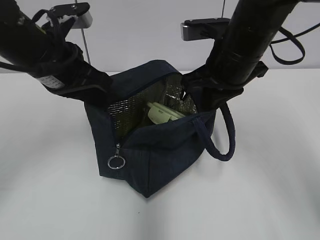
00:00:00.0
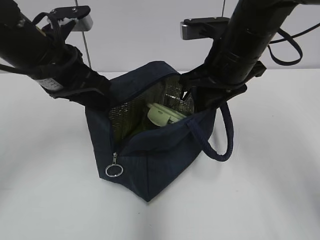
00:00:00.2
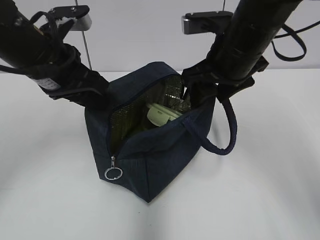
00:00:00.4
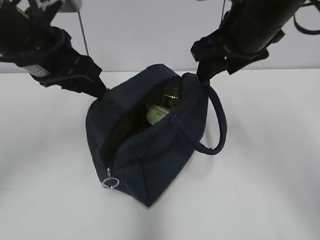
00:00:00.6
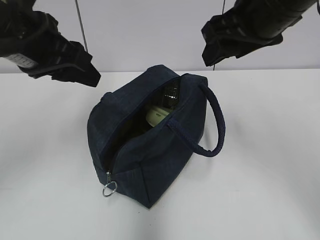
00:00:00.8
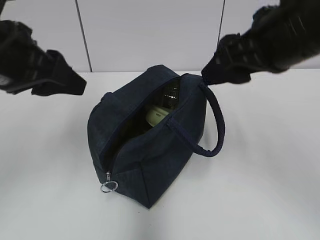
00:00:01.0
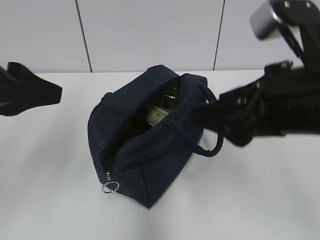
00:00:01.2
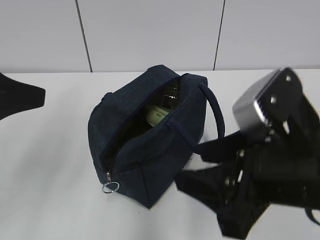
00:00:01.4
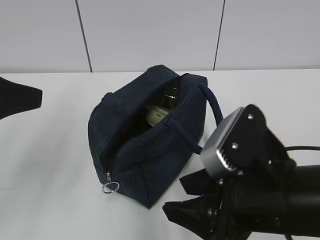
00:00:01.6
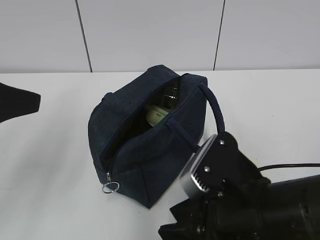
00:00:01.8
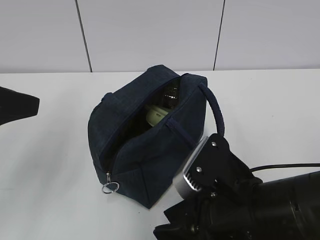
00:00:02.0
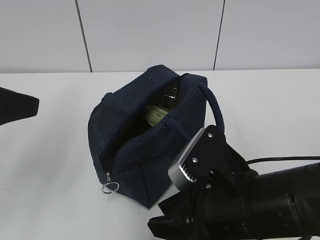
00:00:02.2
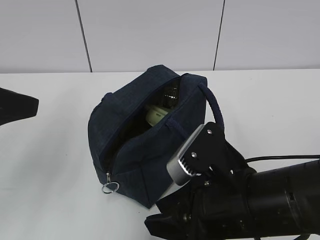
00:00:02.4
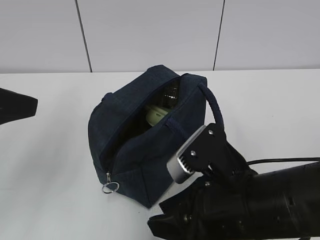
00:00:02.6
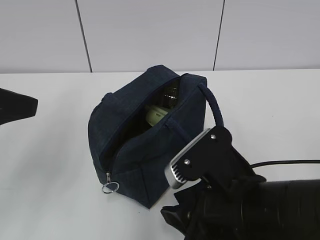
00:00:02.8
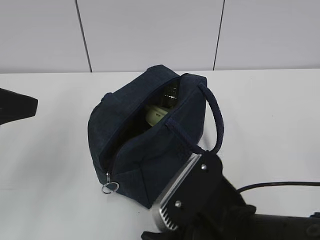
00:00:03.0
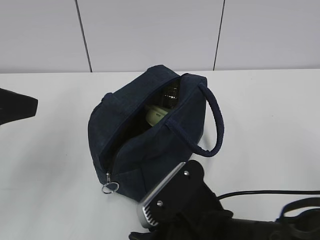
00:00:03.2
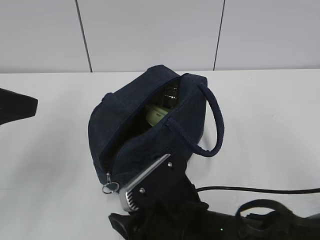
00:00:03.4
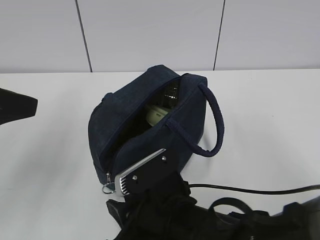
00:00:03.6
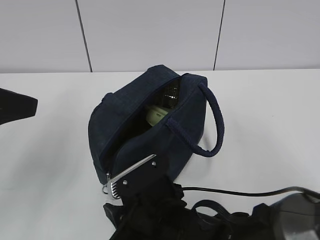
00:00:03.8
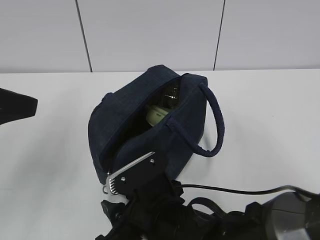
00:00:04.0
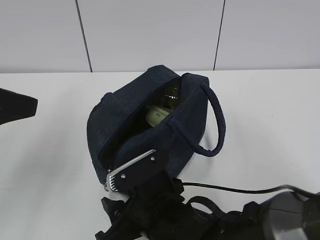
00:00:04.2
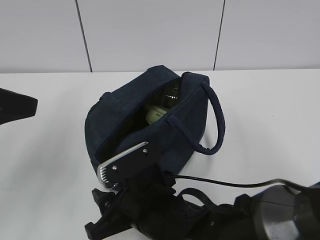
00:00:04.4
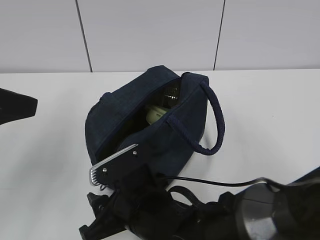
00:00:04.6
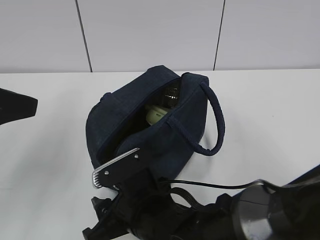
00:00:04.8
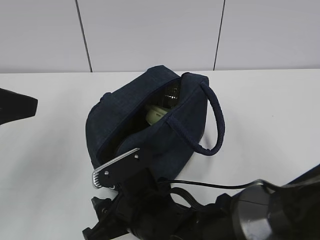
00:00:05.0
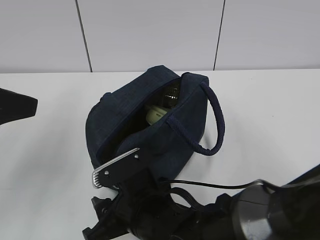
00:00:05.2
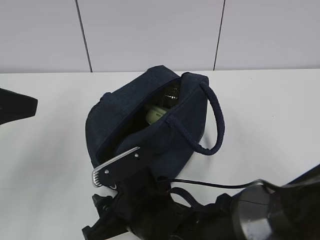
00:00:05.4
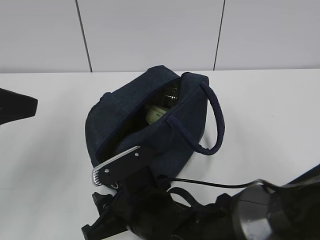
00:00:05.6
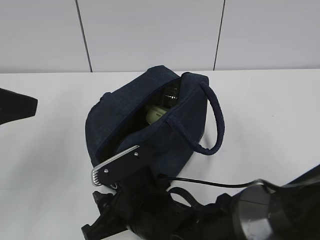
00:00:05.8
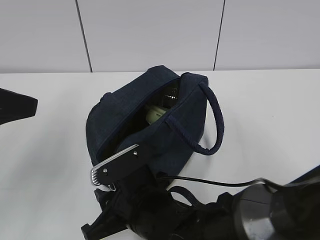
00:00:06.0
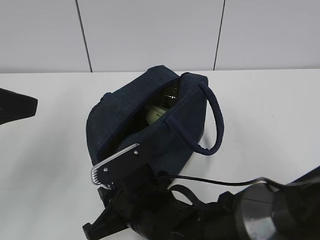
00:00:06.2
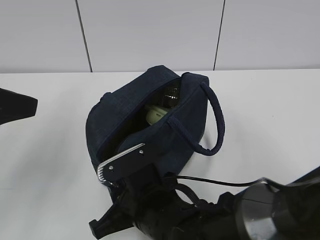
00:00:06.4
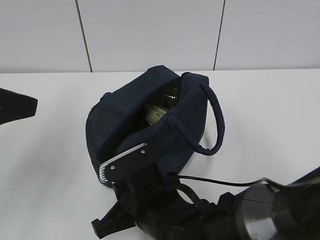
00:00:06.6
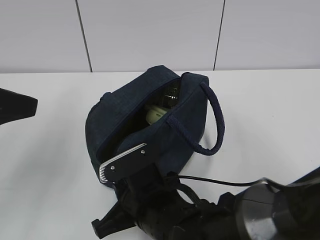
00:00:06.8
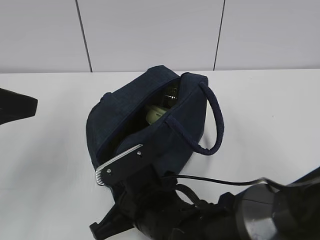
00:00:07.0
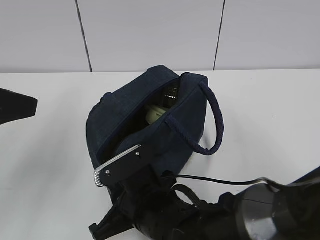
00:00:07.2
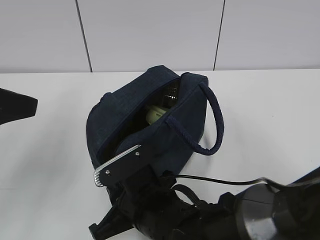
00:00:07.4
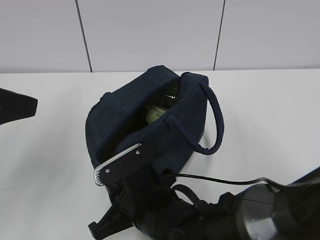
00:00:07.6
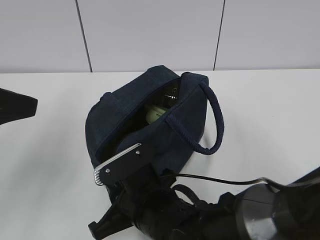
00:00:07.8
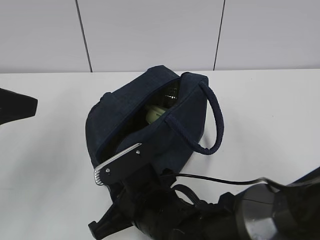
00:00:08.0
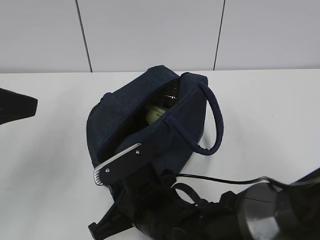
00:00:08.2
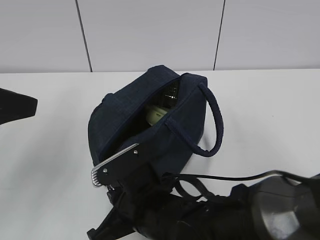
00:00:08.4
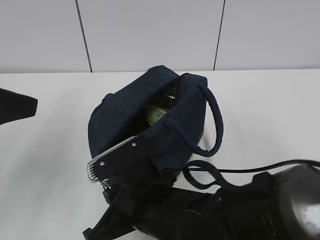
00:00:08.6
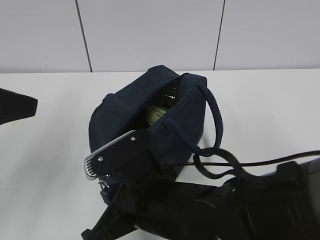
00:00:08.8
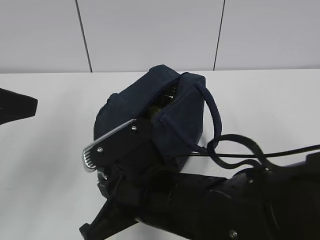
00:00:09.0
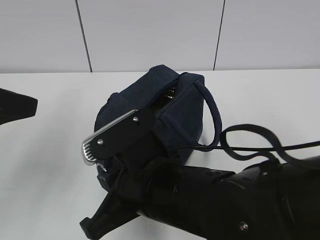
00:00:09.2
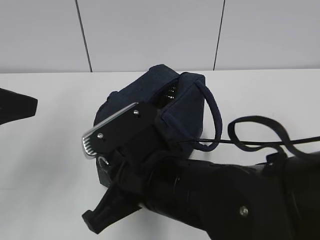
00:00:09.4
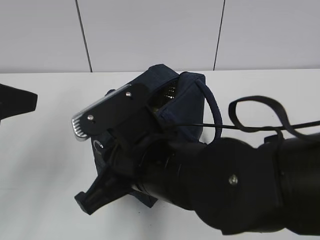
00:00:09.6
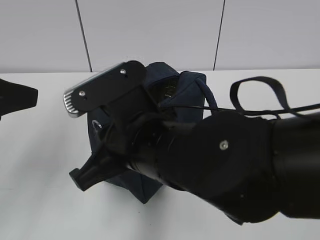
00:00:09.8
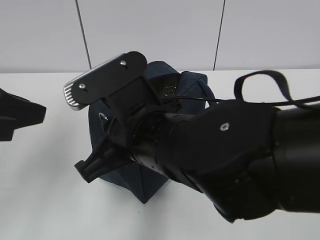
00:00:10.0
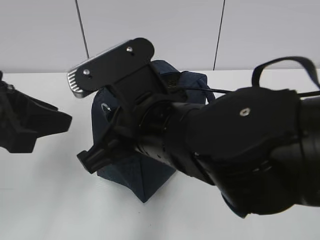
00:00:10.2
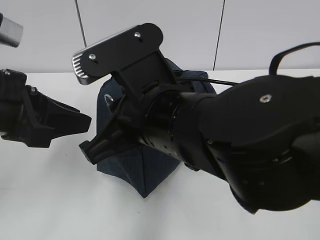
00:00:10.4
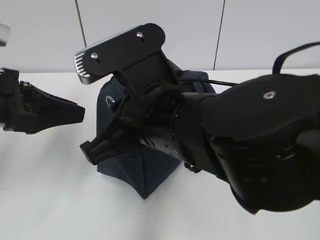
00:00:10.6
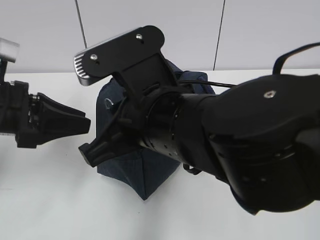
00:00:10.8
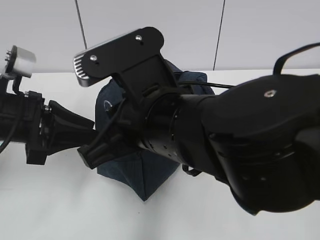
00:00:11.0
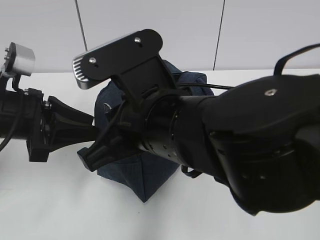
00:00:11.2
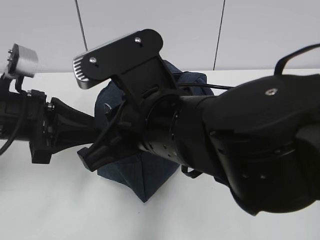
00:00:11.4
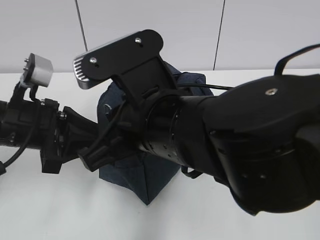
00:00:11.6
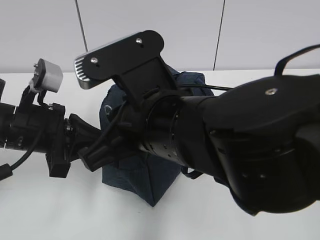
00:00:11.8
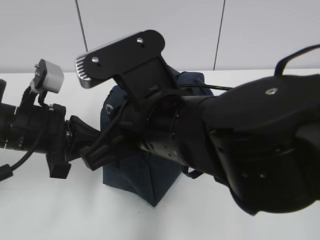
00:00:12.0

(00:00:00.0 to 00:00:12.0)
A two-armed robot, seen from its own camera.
00:00:00.0 - 00:00:01.6: The left gripper heads backward and to the left, covering some 15 cm, and opens up. The right gripper shifts approximately 20 cm backward, and opens its fingers.
00:00:01.6 - 00:00:03.0: The right gripper shifts by approximately 5 cm.
00:00:03.0 - 00:00:04.4: The right gripper goes approximately 10 cm to the left, forward and downward.
00:00:04.4 - 00:00:07.6: The grippers make only small movements.
00:00:07.6 - 00:00:09.0: The right gripper travels upward by roughly 10 cm.
00:00:09.0 - 00:00:10.4: The left gripper moves forward, some 5 cm. The right gripper goes about 10 cm upward.
00:00:10.4 - 00:00:12.0: The left gripper heads downward, covering some 5 cm, and closes its fingers.

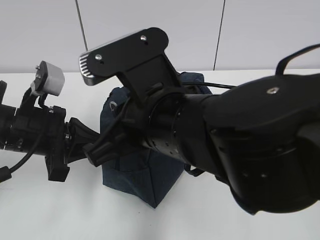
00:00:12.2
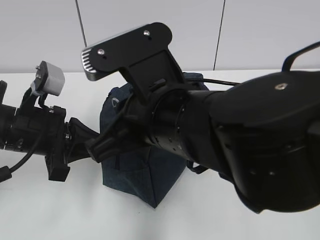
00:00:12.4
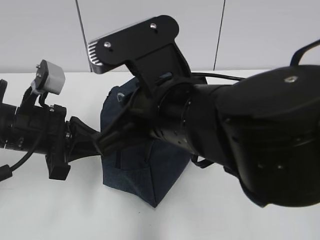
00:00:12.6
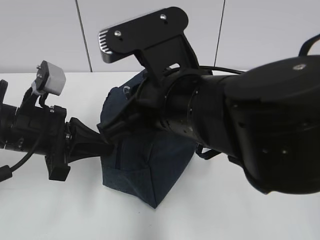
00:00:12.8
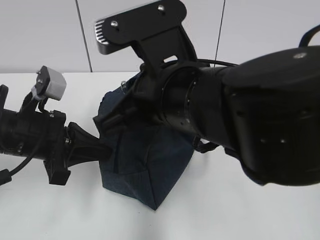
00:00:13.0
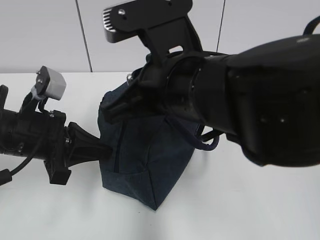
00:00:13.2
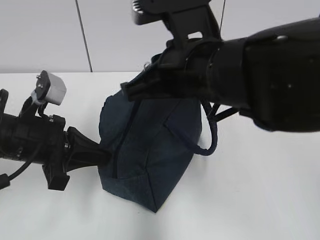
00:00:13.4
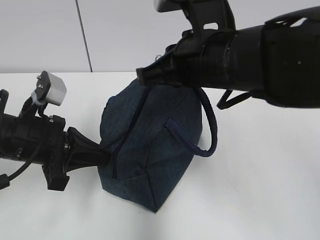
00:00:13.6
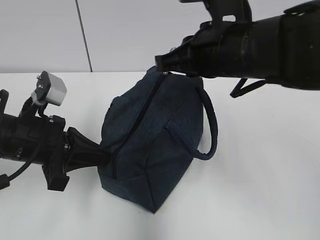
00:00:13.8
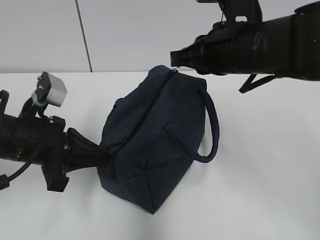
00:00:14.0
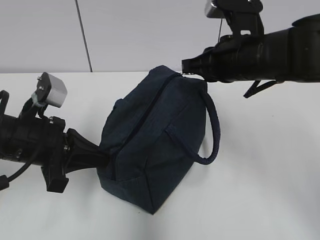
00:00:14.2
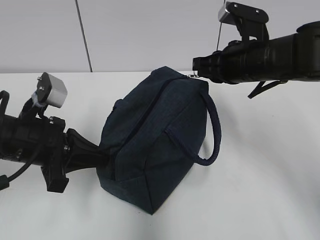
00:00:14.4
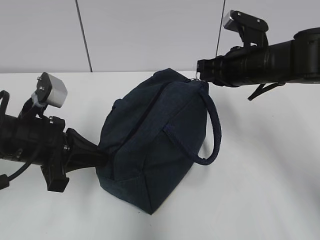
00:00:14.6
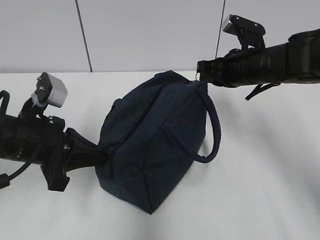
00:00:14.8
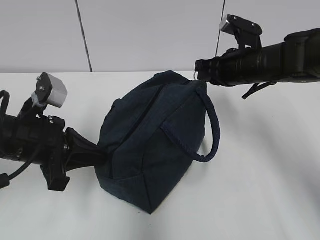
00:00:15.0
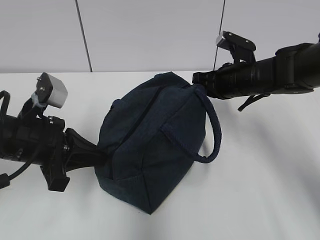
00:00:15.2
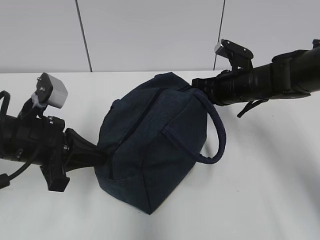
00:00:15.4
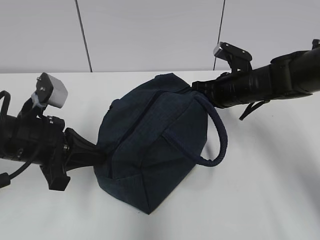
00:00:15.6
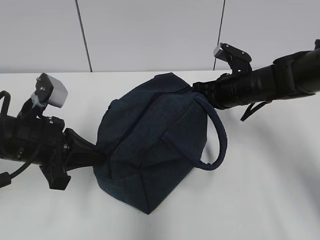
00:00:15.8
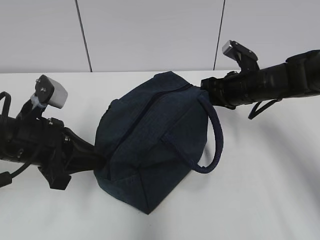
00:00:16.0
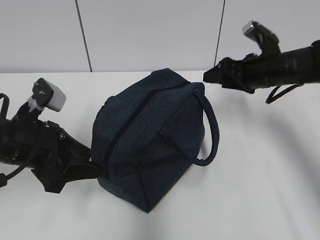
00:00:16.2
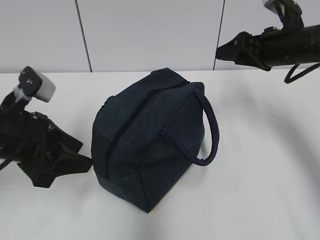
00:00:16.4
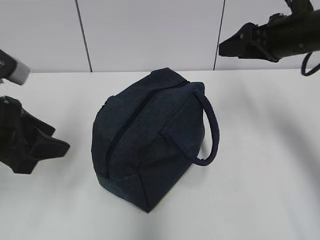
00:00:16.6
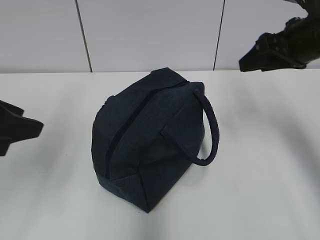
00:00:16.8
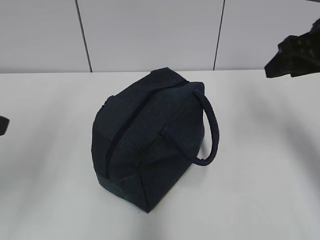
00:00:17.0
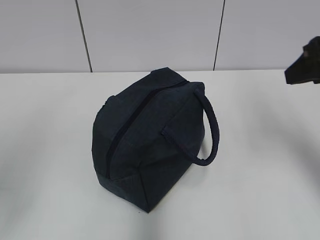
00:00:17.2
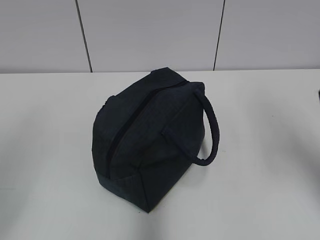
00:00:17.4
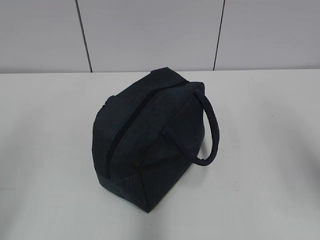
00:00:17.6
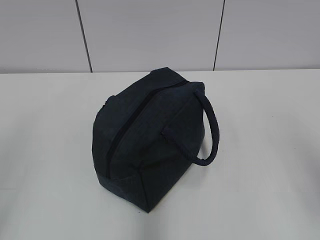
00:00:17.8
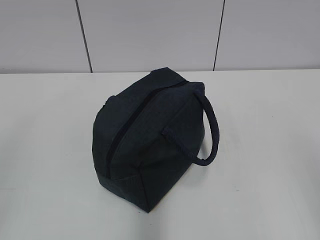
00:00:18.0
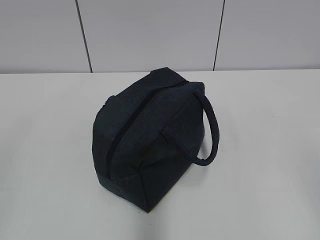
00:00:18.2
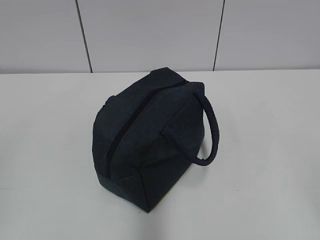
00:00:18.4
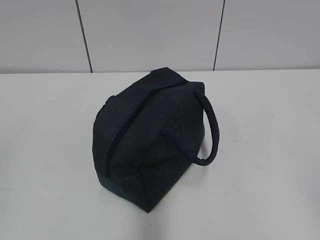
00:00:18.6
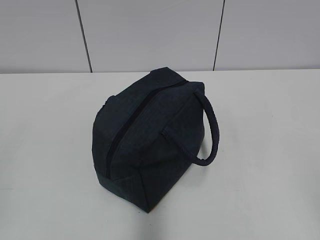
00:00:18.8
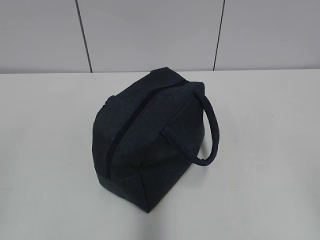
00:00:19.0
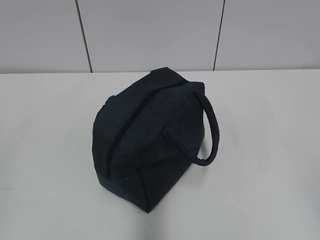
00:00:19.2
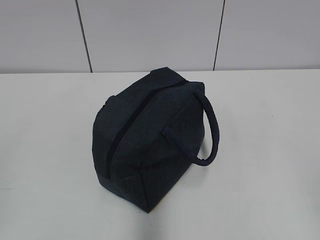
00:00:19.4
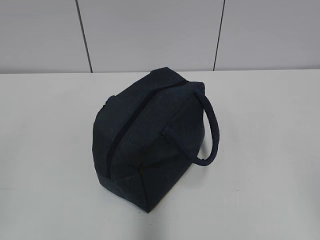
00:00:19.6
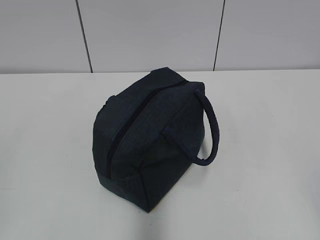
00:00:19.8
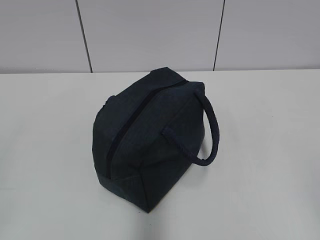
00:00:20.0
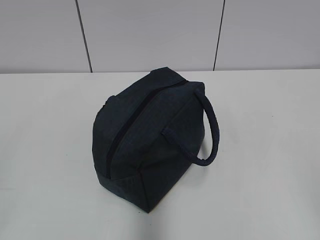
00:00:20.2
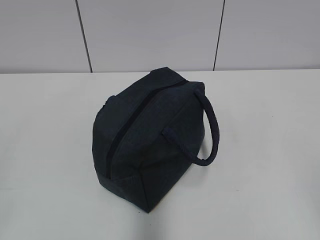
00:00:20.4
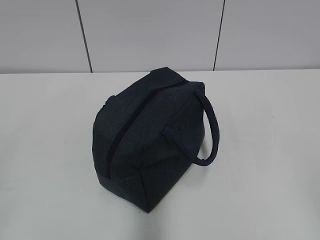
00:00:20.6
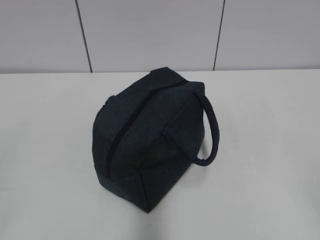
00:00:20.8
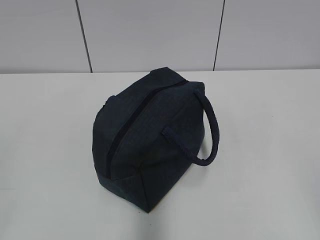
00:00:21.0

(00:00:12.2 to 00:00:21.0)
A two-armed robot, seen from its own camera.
Step, 00:00:12.2 - 00:00:16.0: Pull the zipper with your right hand.
00:00:12.2 - 00:00:13.6: The right gripper shifts some 10 cm forward and to the right.
00:00:13.6 - 00:00:15.2: The right gripper heads forward, downward and to the right, covering approximately 20 cm.
00:00:15.2 - 00:00:16.6: The left gripper goes roughly 5 cm upward, and opens. The right gripper is displaced upward and to the right by about 15 cm, and opens.
00:00:16.6 - 00:00:18.0: The right gripper heads backward, covering about 35 cm. Meanwhile the left gripper goes approximately 20 cm backward.
